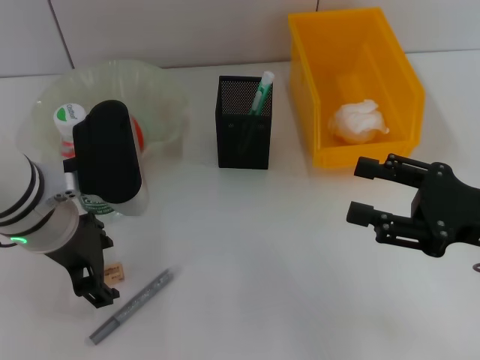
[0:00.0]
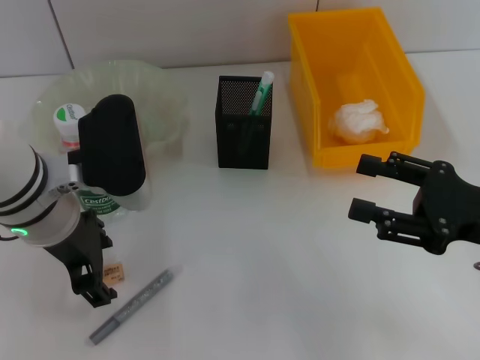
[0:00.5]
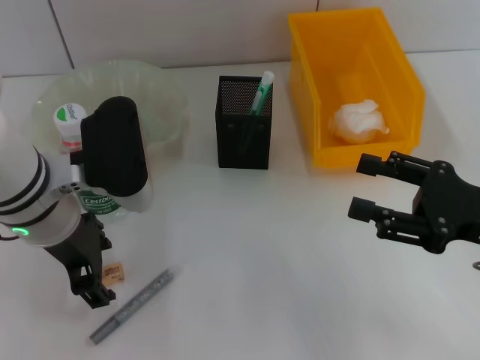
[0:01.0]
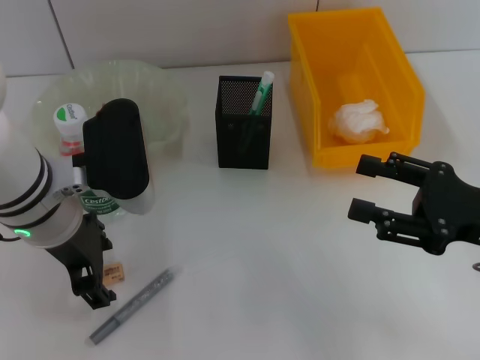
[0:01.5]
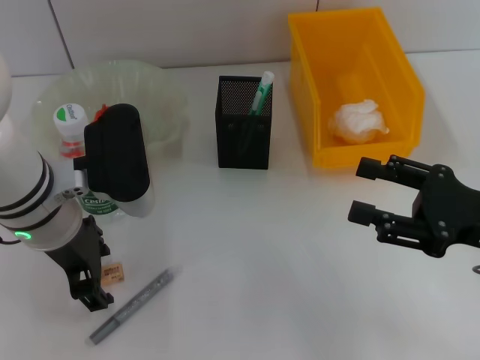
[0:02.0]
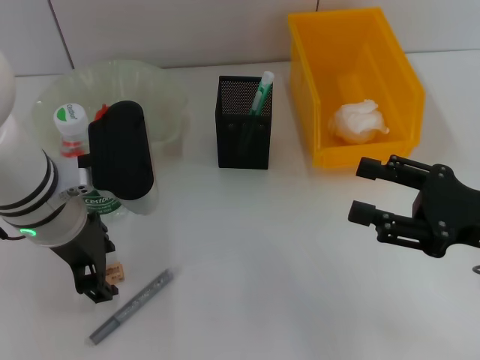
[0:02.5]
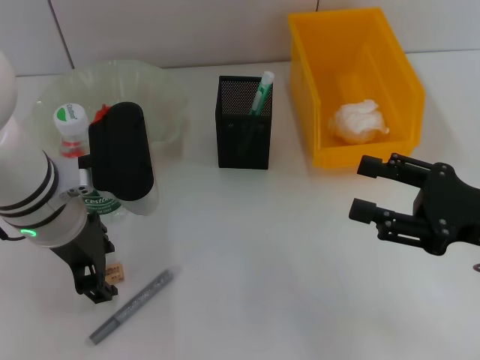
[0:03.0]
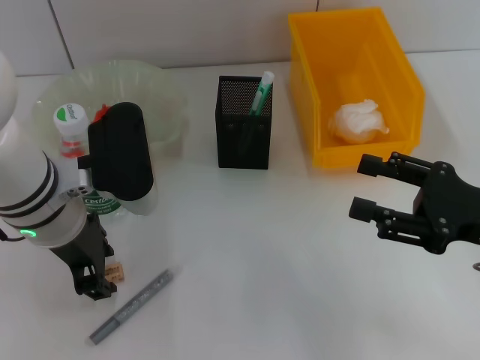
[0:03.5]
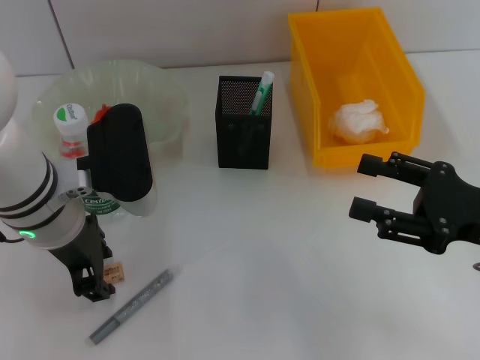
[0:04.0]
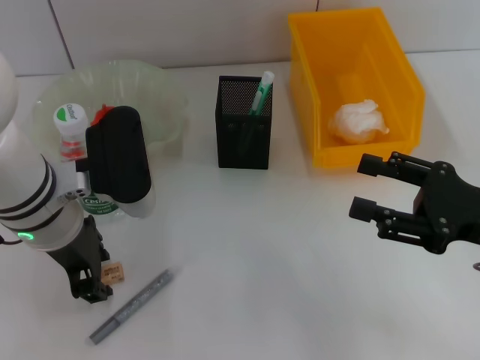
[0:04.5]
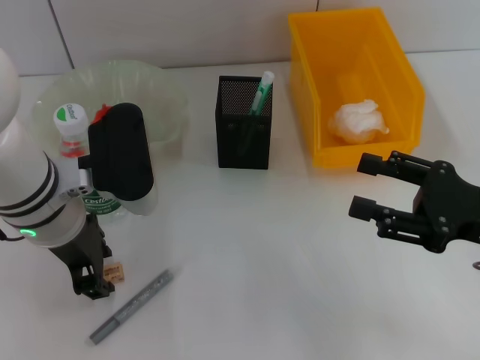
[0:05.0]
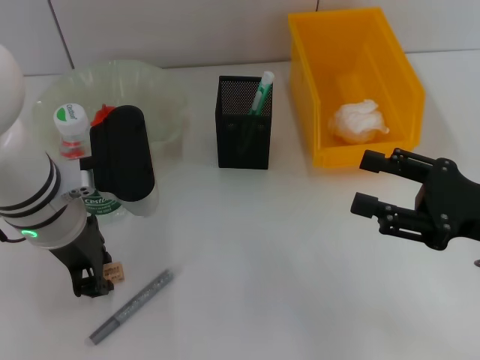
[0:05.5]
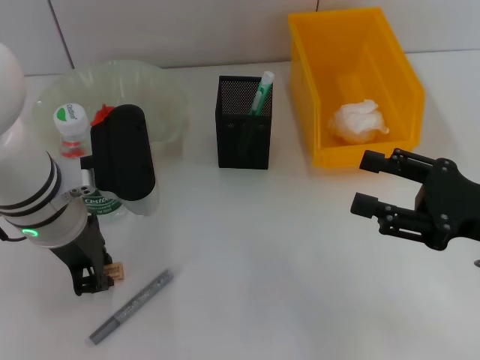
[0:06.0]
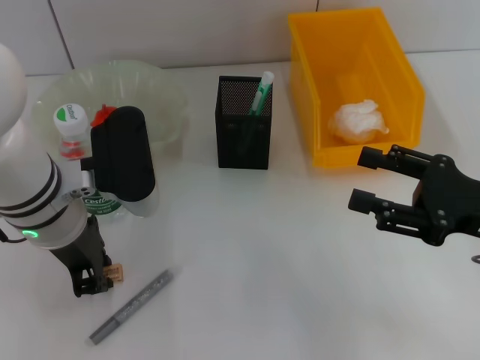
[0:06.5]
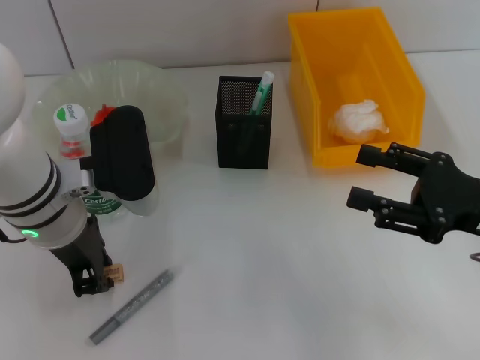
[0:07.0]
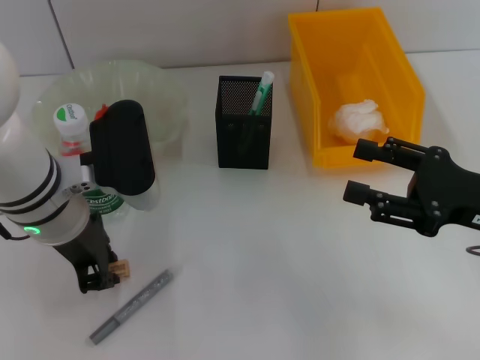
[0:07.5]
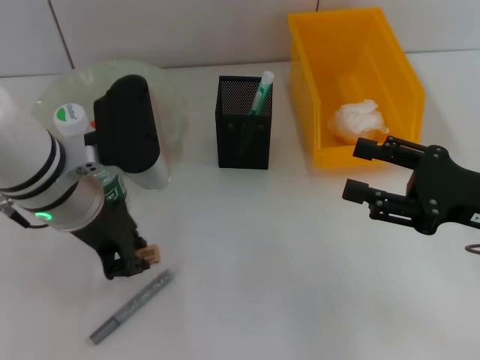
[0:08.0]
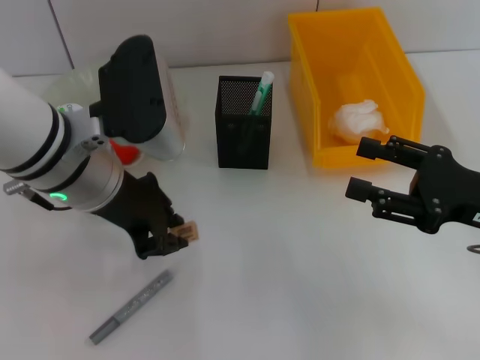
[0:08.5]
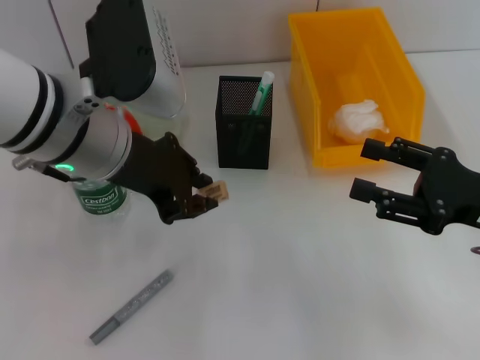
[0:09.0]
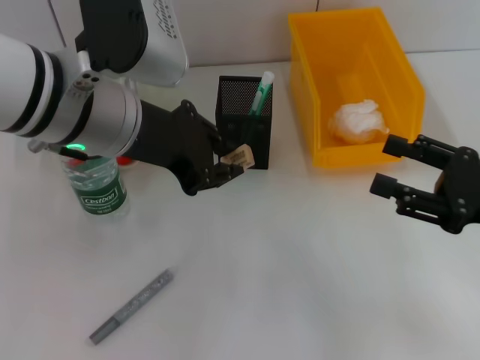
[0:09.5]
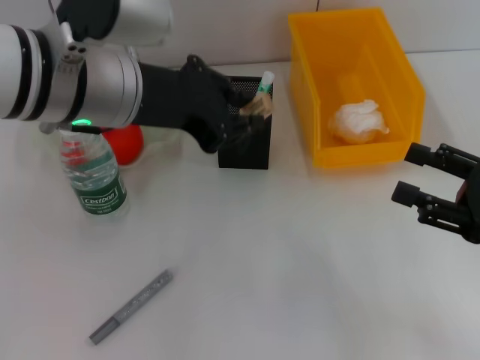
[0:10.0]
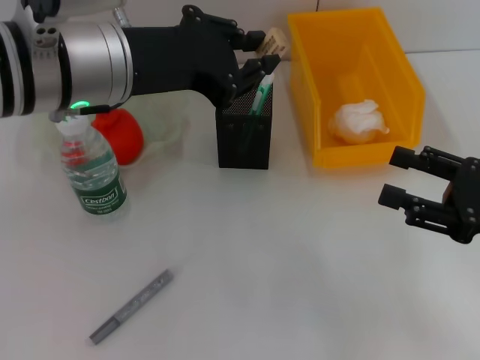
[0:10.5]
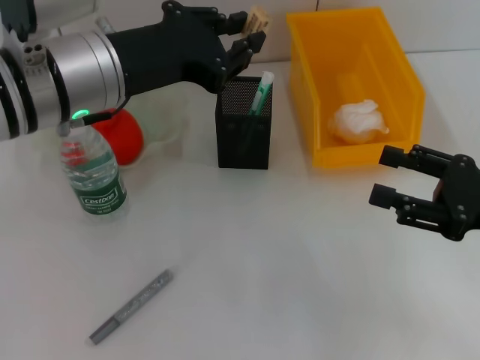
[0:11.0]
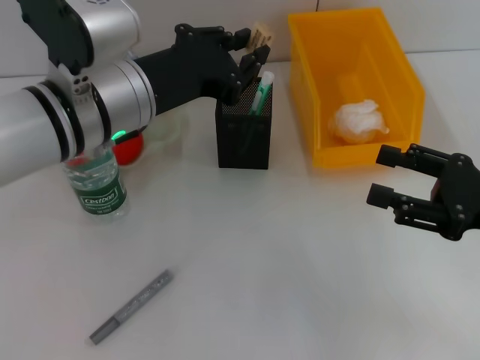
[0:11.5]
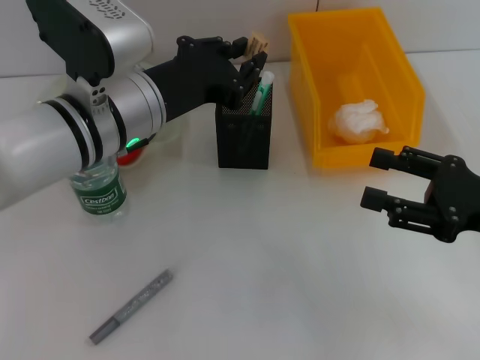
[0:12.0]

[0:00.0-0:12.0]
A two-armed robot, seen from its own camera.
Step, 0:00.0 to 0:06.5: Grab the eraser with the left hand.
0:00.0 to 0:02.0: The grippers stay close to where they were, moving slightly.
0:02.0 to 0:06.0: Neither gripper changes place.
0:06.0 to 0:08.0: The grippers stay close to where they were, moving slightly.
0:08.0 to 0:10.0: The left gripper goes some 10 cm upward.
0:10.0 to 0:12.0: The left gripper heads downward, covering roughly 5 cm.

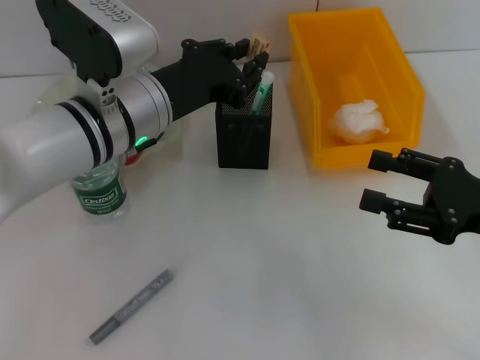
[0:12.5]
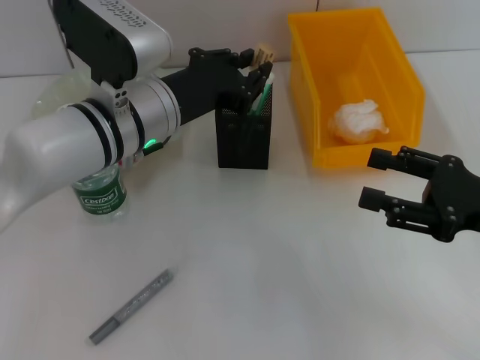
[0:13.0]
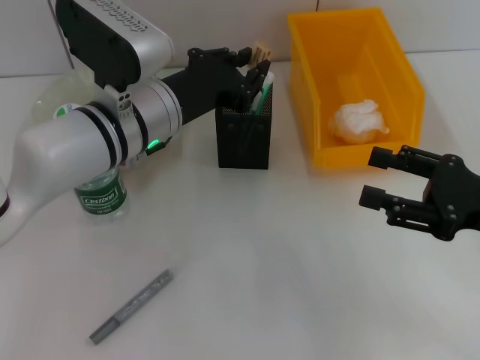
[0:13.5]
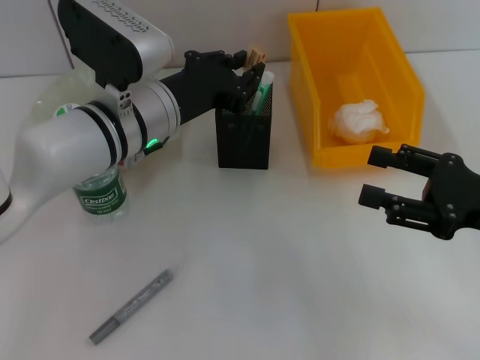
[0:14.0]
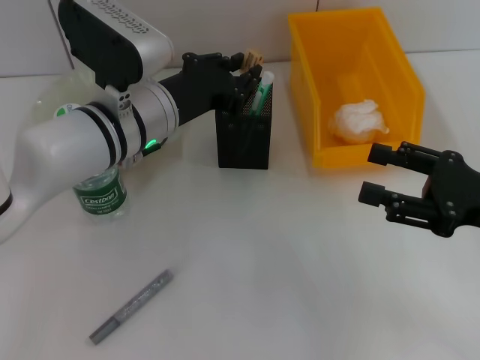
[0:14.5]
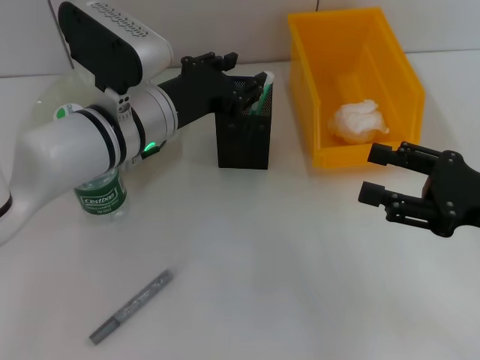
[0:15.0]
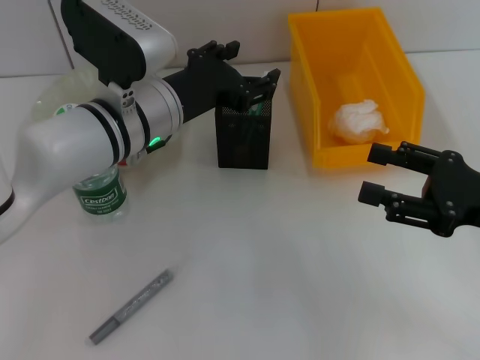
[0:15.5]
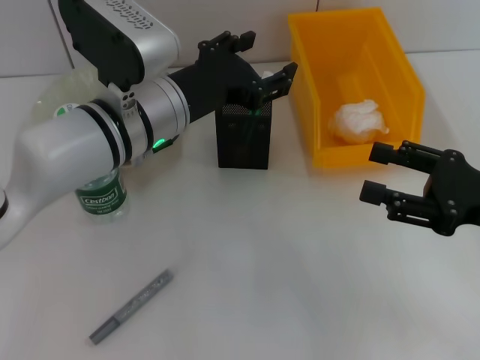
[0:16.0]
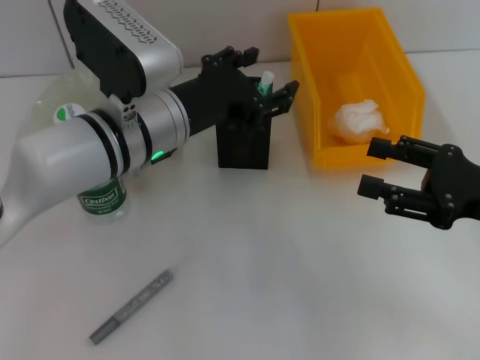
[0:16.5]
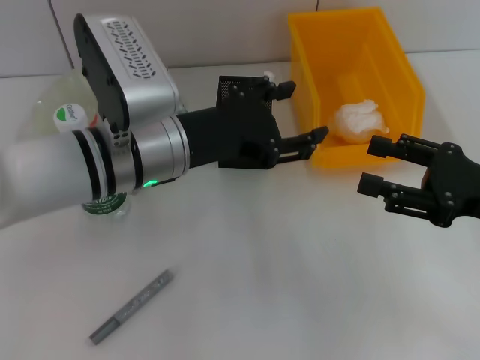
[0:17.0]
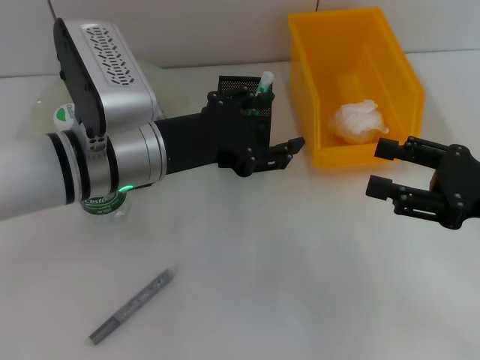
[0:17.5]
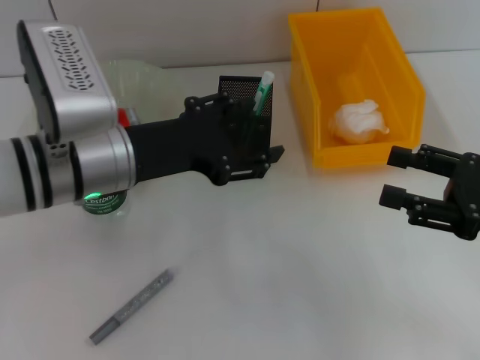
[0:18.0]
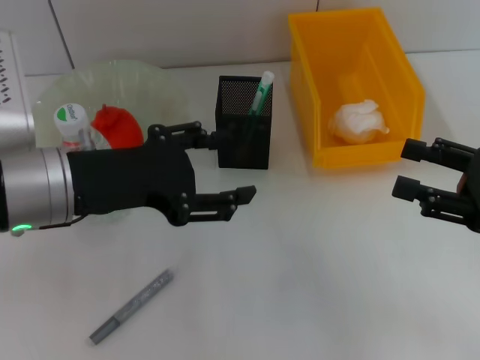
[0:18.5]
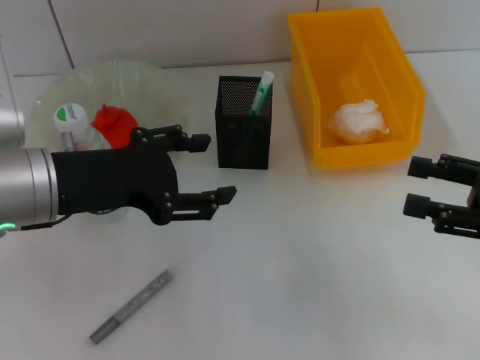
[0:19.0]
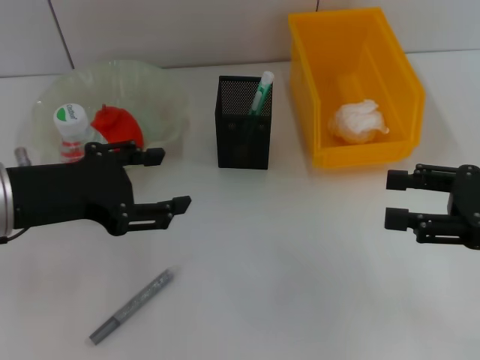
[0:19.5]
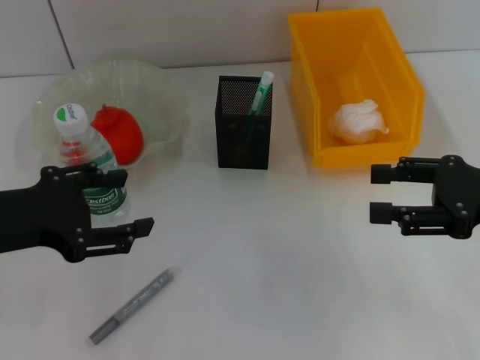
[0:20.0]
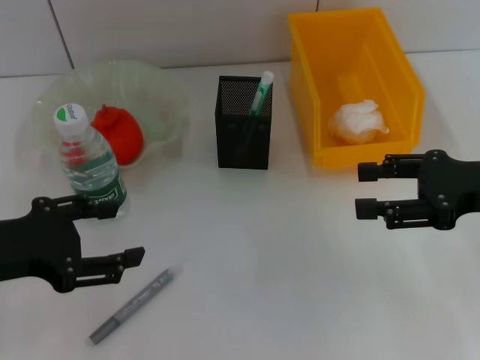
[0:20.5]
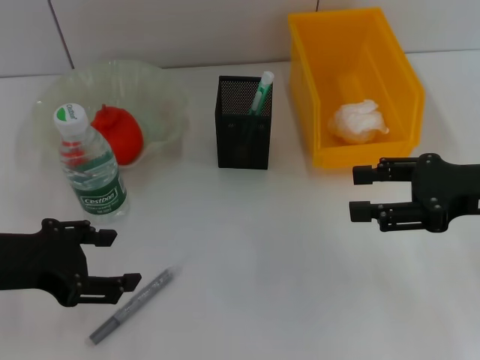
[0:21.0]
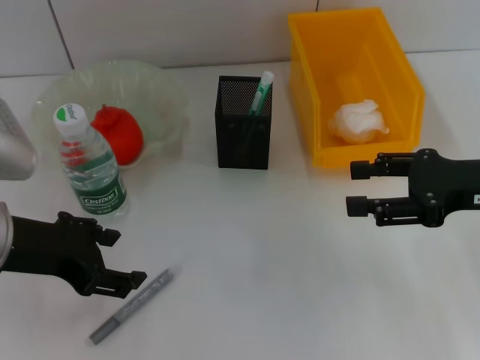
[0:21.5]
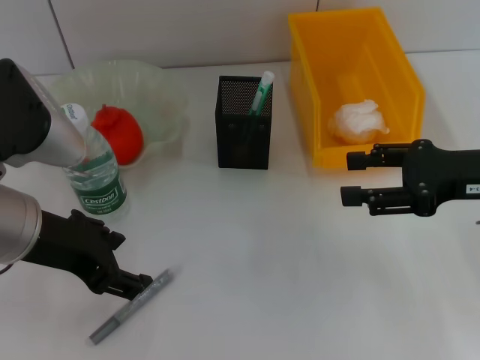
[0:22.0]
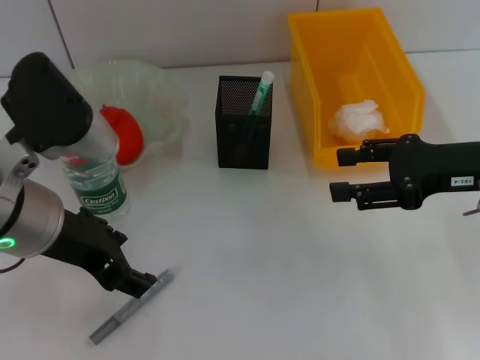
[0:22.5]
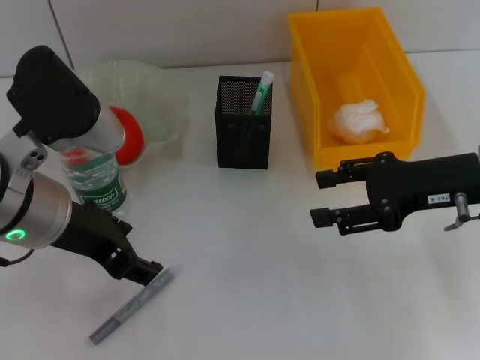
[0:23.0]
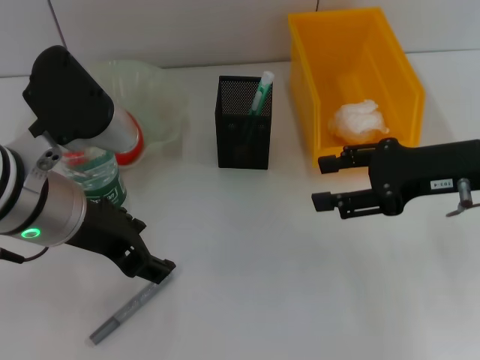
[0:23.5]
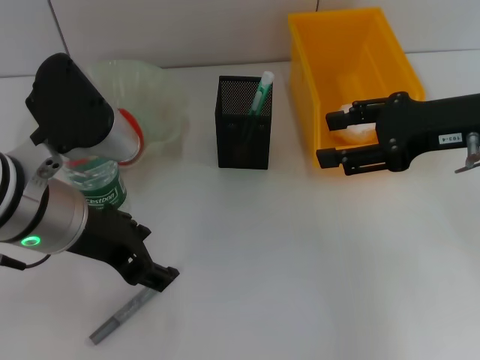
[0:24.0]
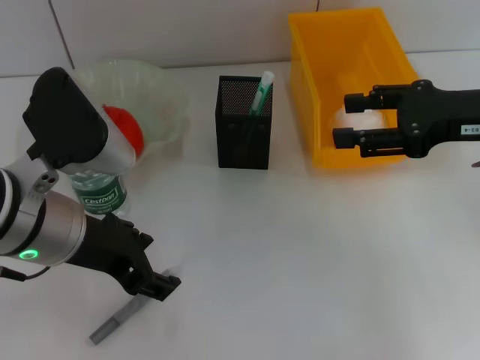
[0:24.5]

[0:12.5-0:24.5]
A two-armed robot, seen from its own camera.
Step, 0:12.5 to 0:16.0: Place the eraser into the pen holder with the left hand.
0:12.5 to 0:14.5: The grippers move only a little.
0:14.5 to 0:16.5: The left gripper opens.
0:16.5 to 0:18.5: The left gripper travels to the left and backward by about 10 cm.
0:18.5 to 0:20.5: The right gripper moves about 5 cm; the left gripper heads to the left, covering some 10 cm.
0:20.5 to 0:22.5: The left gripper goes about 10 cm to the right.
0:22.5 to 0:24.5: The grippers stay close to where they were, moving slightly.

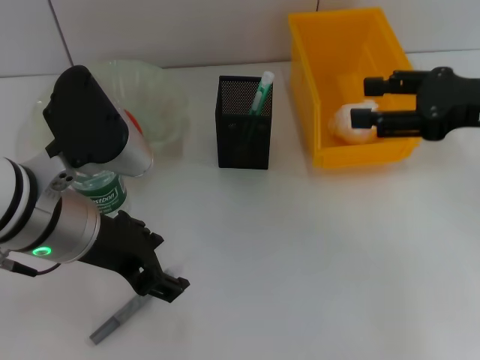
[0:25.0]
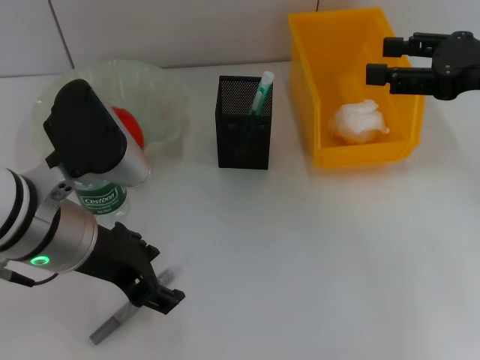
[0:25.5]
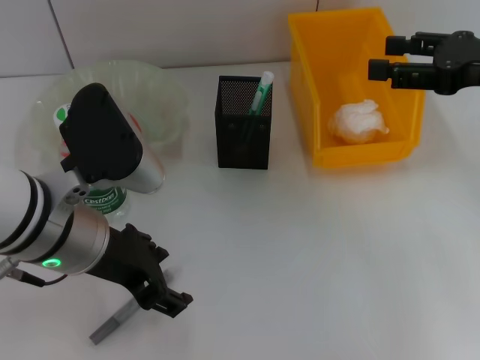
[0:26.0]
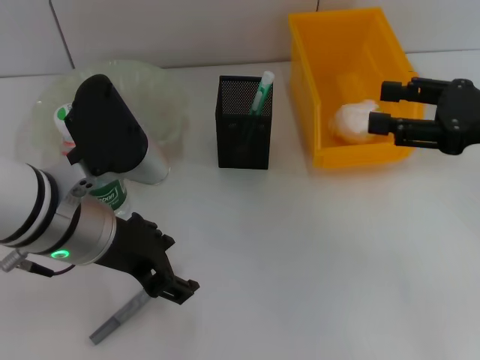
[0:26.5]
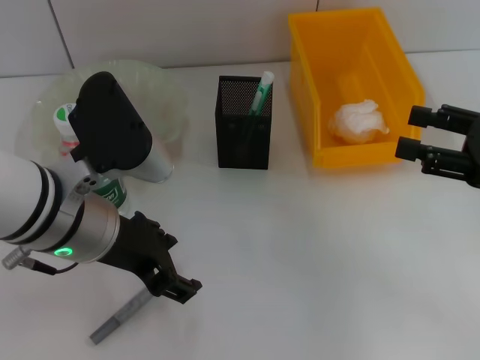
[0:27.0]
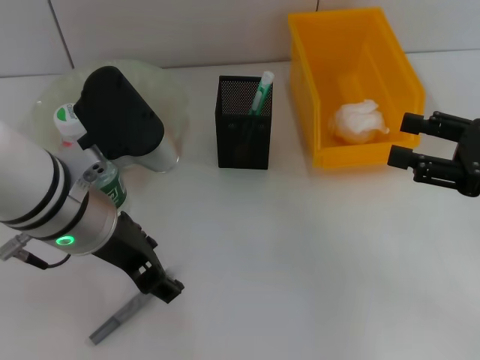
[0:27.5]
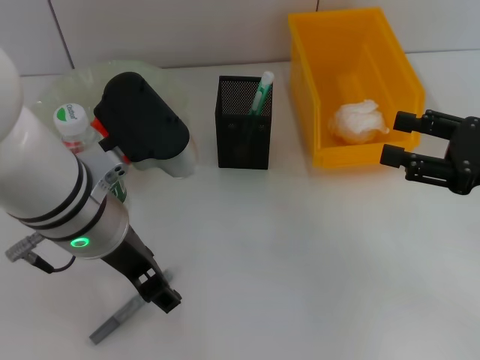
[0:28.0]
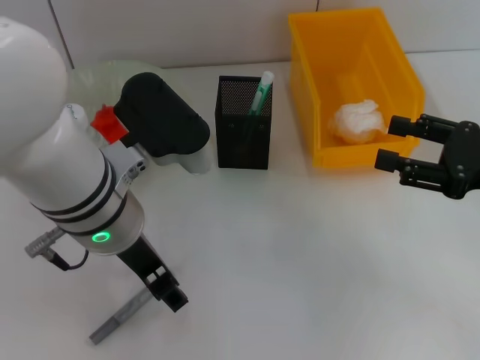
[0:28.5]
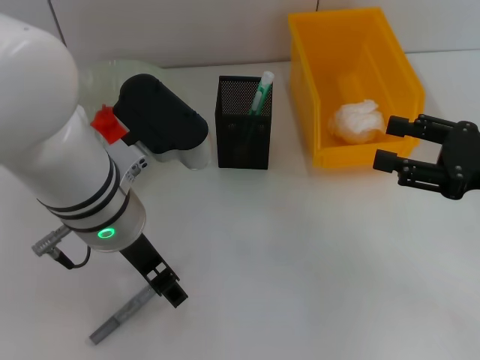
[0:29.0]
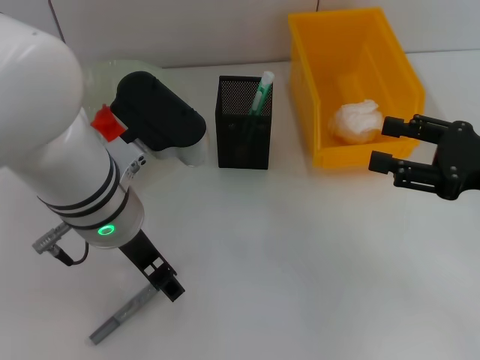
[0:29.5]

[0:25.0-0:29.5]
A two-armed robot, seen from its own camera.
0:25.0 to 0:27.0: The right gripper is displaced backward by approximately 5 cm.
